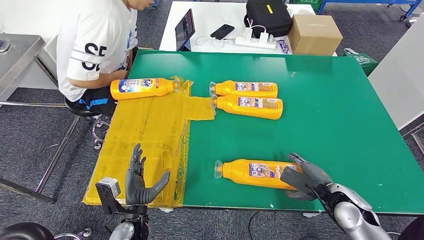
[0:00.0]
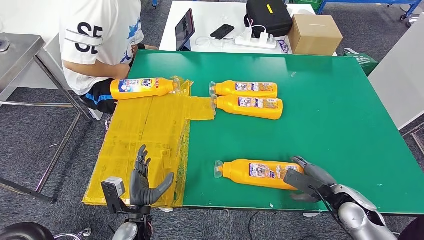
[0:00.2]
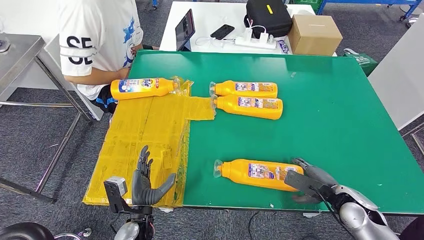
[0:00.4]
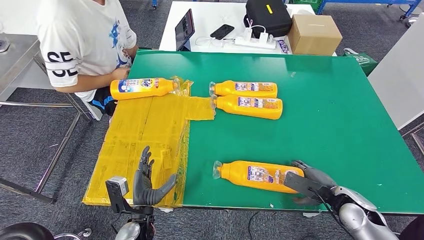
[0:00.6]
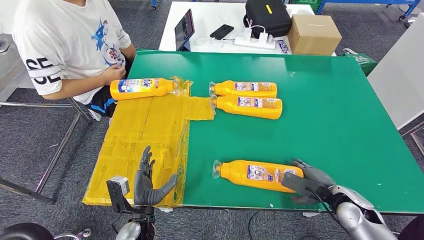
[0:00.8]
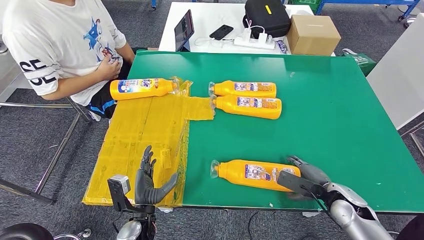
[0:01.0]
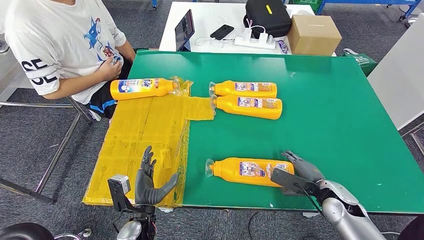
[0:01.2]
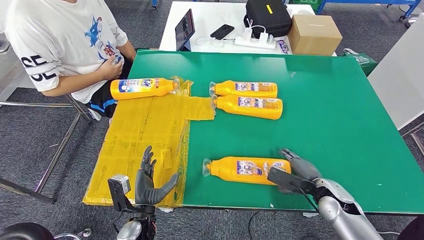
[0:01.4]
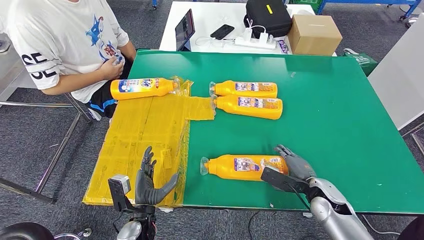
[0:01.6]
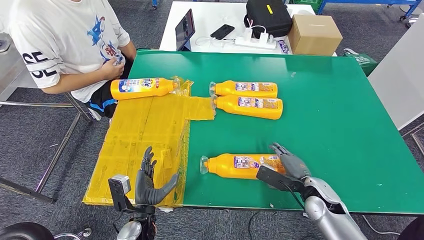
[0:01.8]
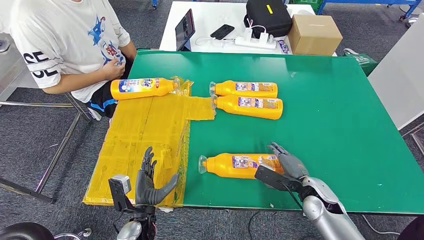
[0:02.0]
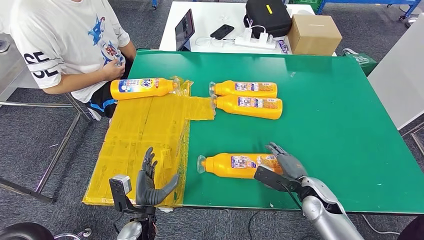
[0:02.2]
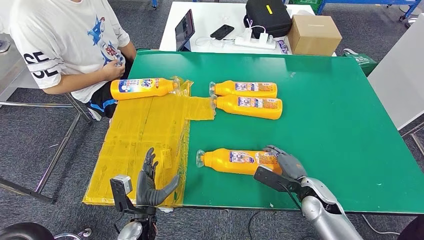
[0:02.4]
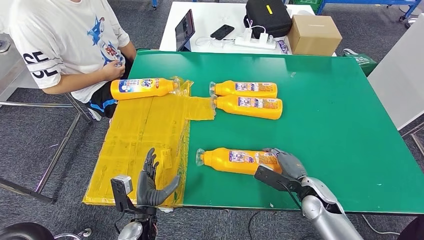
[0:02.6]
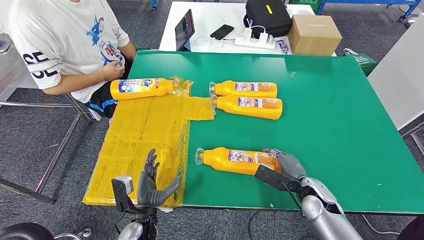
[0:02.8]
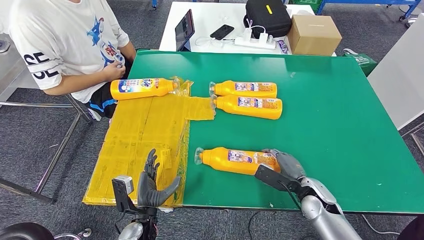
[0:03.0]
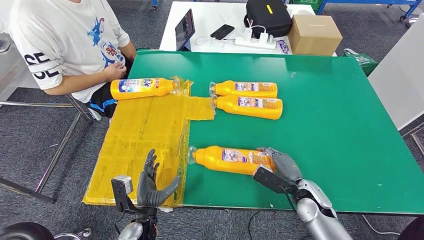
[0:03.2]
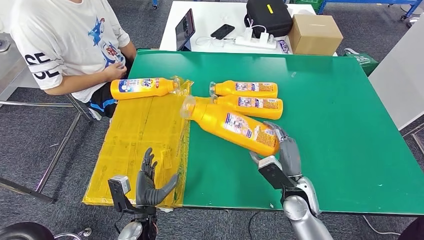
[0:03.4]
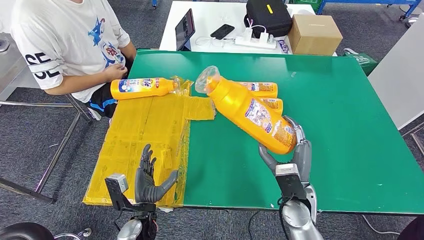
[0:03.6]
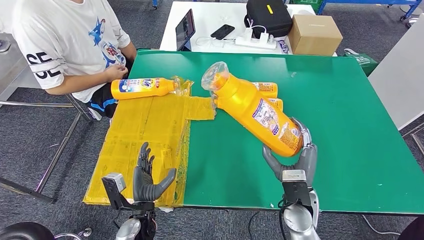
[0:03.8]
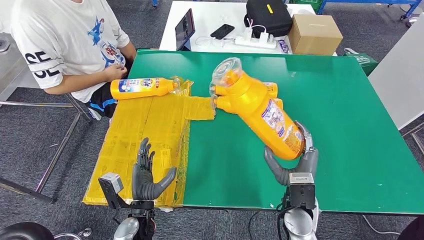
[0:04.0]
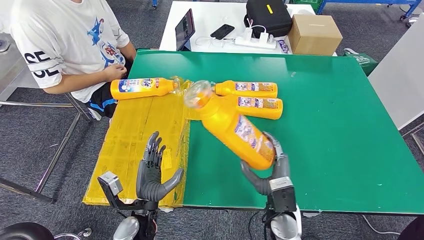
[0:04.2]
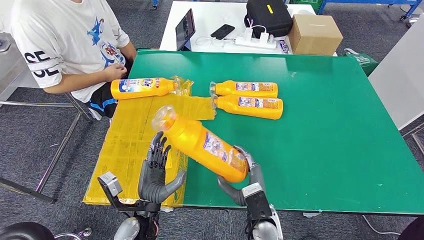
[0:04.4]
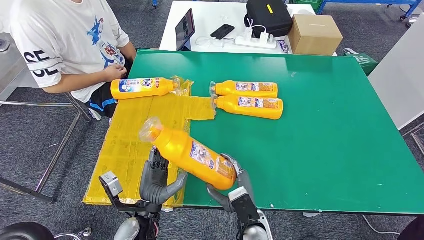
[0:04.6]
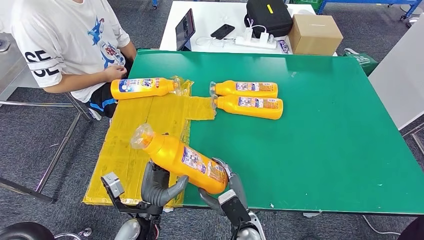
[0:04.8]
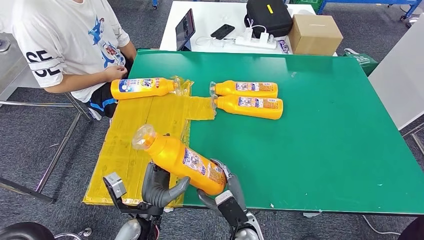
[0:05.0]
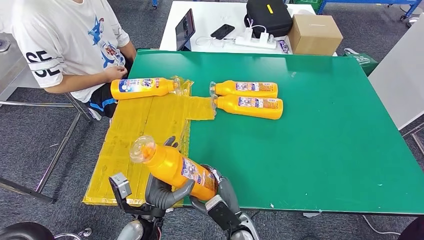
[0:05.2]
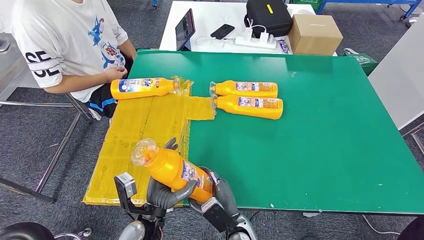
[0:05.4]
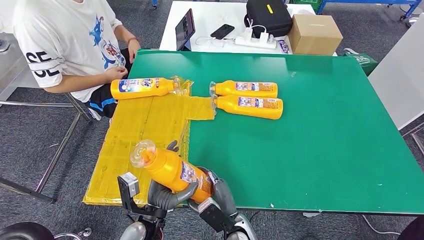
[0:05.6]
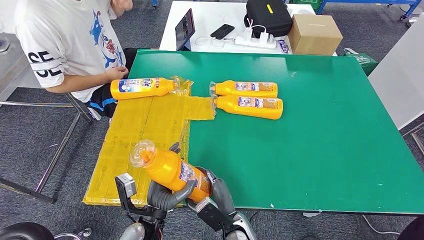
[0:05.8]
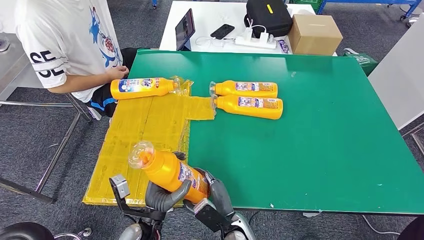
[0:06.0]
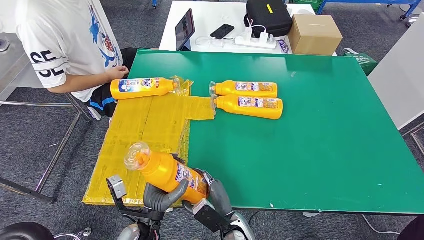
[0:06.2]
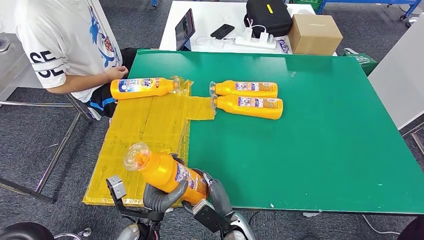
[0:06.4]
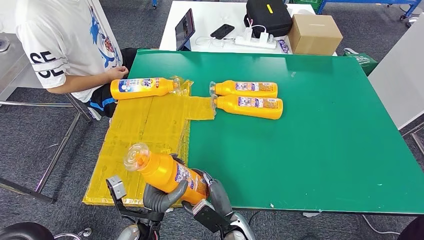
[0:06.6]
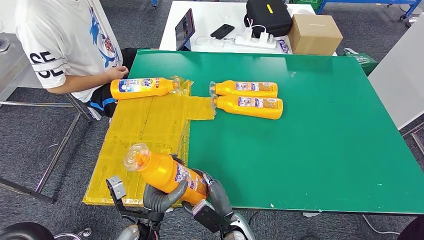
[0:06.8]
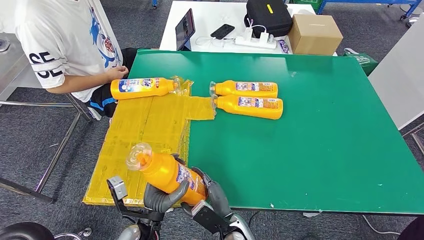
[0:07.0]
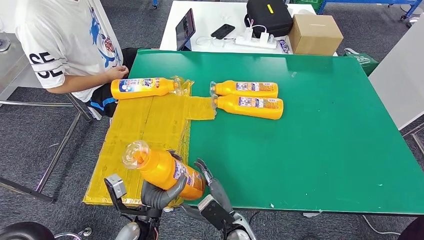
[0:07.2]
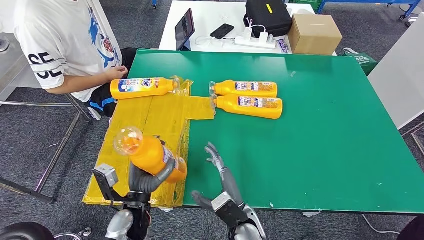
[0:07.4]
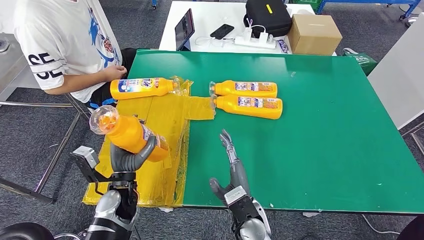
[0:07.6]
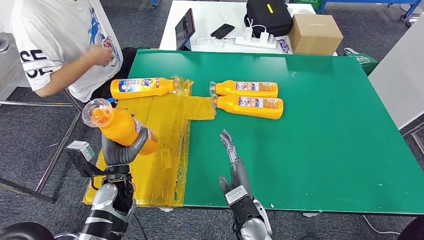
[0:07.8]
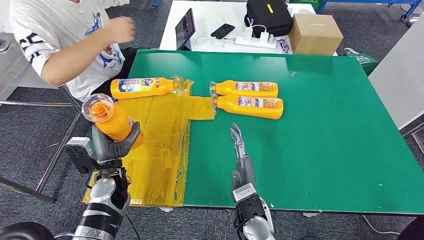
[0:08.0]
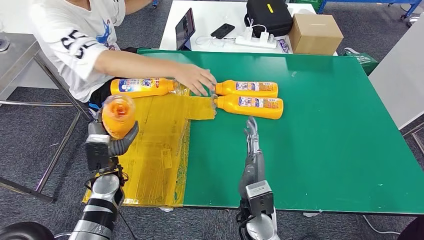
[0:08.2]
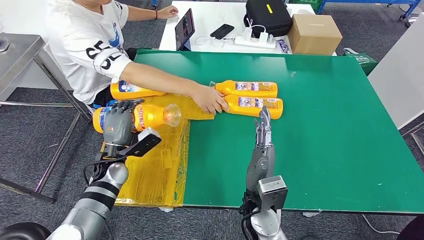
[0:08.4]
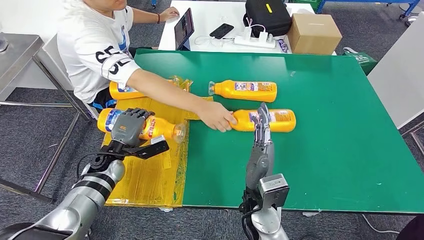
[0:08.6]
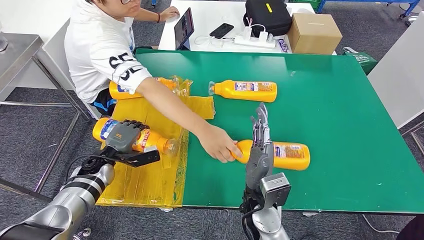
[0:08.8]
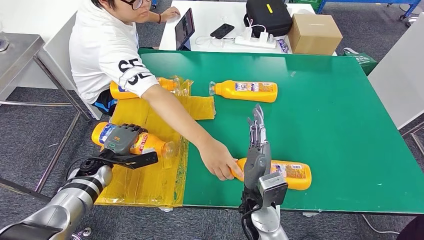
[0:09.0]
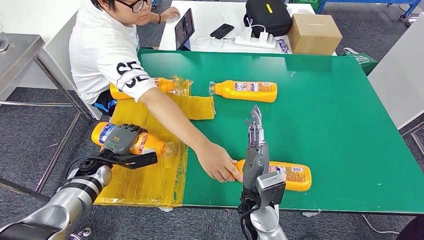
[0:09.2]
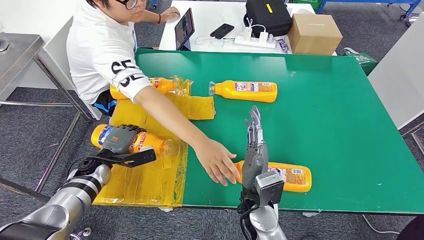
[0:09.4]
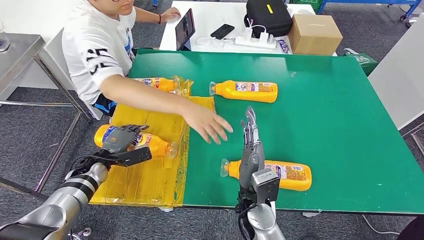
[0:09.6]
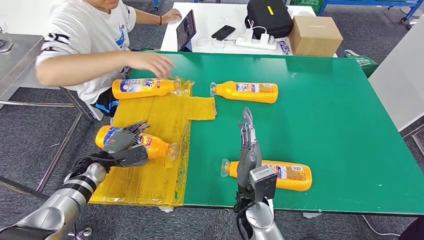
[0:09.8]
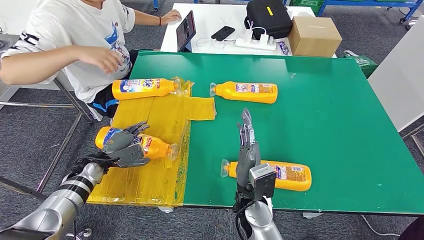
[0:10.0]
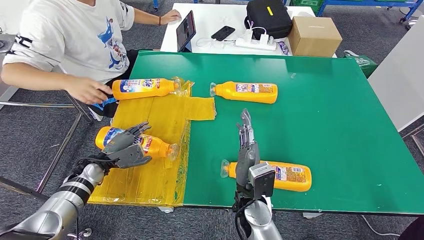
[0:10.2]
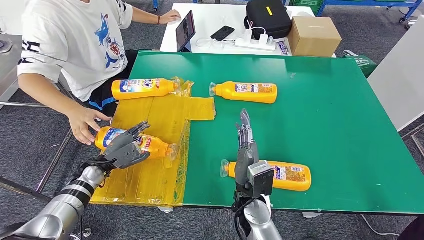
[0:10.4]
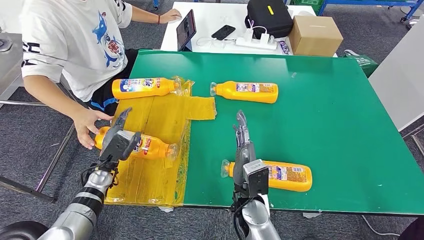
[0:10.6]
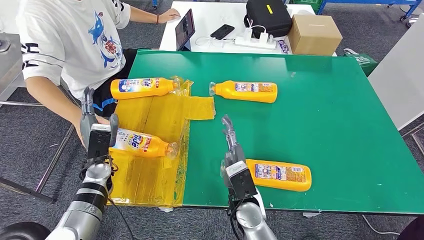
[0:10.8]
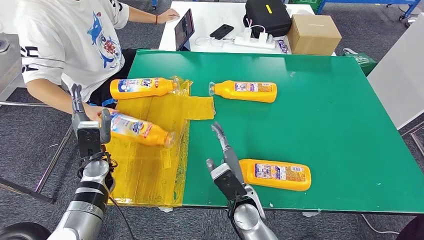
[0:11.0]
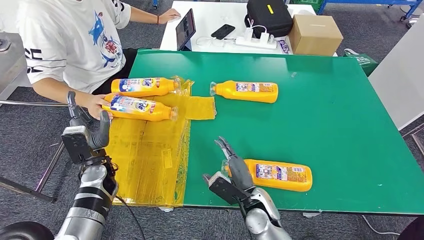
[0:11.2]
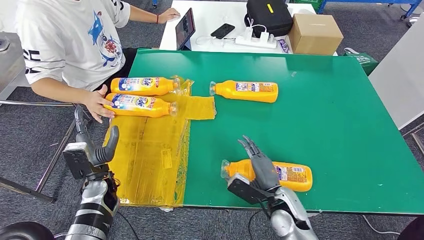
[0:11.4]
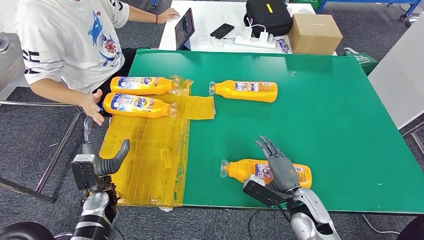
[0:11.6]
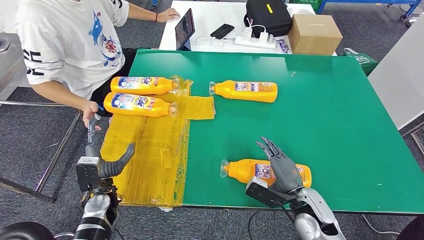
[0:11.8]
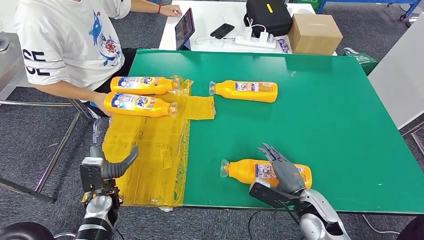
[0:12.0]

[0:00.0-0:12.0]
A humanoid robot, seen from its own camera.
Step, 0:00.0 to 0:03.4: Pick up the bottle from the table.
Step, 0:04.0 to 0:09.4: Flip the bottle to face forward.
0:00.0 to 0:01.6: The right hand changes place by approximately 5 cm.
0:01.6 to 0:03.0: The hands move only a little.
0:03.0 to 0:04.4: The left hand is displaced upward by about 5 cm, while the right hand shifts approximately 15 cm to the left and backward.
0:04.4 to 0:06.0: The right hand is displaced to the left by about 5 cm.
0:06.0 to 0:07.6: The left hand travels forward and to the left by roughly 10 cm, while the right hand is displaced upward by about 5 cm.

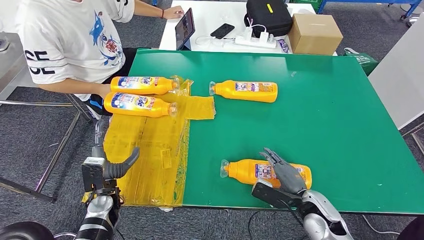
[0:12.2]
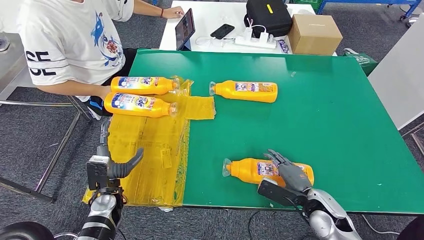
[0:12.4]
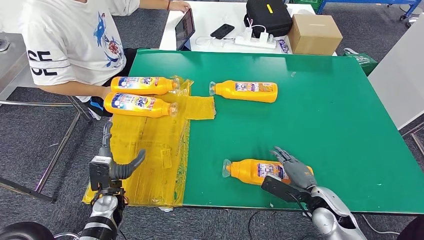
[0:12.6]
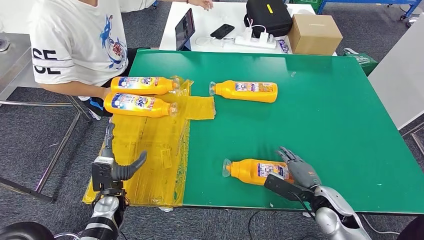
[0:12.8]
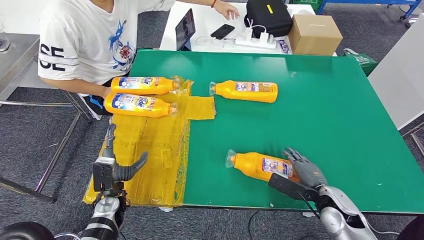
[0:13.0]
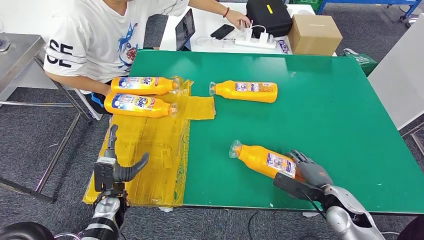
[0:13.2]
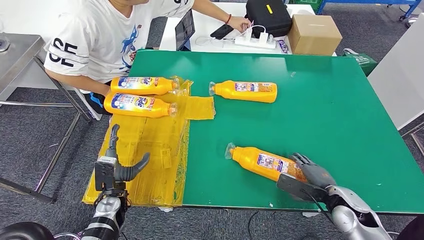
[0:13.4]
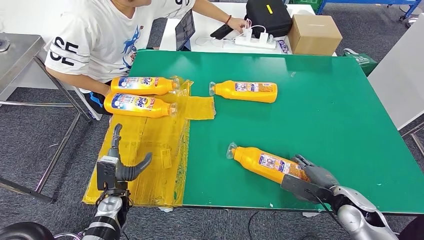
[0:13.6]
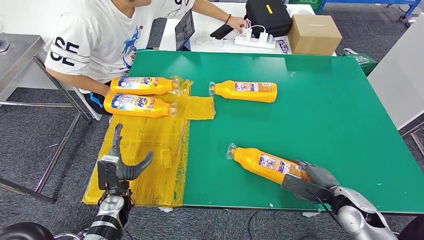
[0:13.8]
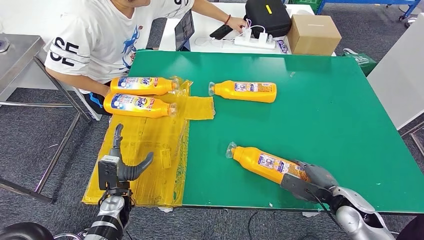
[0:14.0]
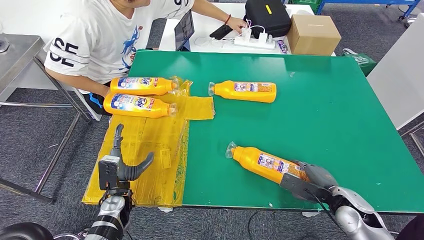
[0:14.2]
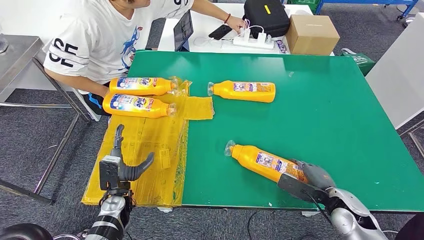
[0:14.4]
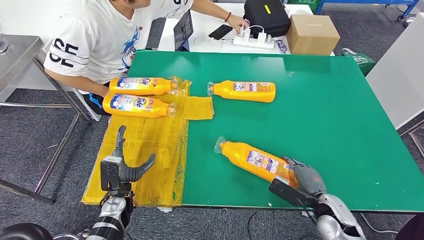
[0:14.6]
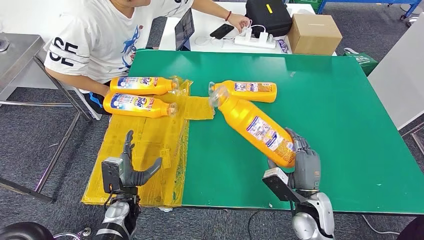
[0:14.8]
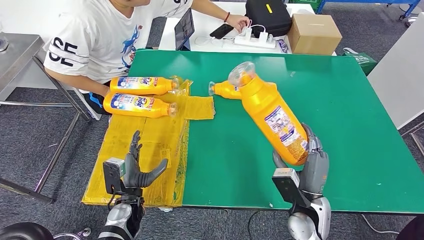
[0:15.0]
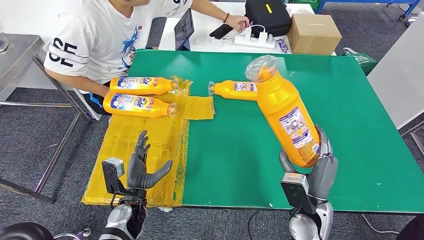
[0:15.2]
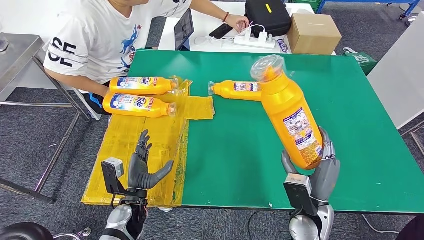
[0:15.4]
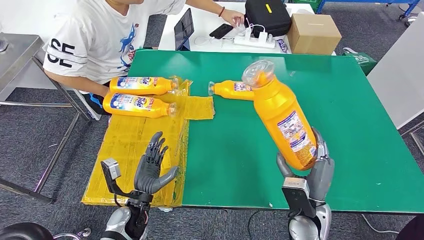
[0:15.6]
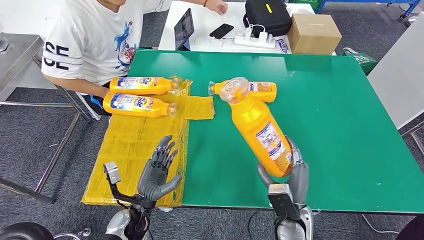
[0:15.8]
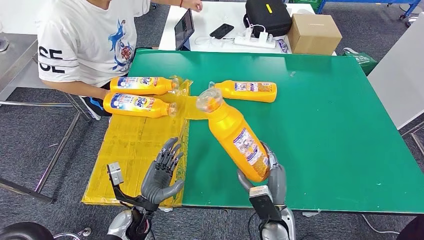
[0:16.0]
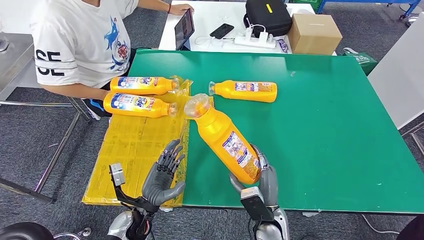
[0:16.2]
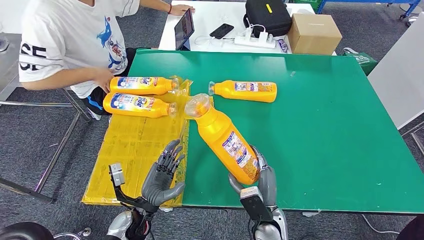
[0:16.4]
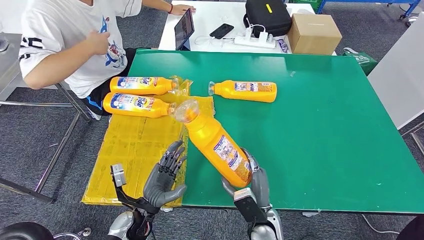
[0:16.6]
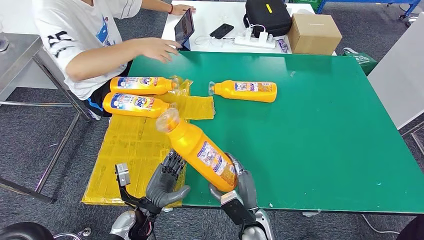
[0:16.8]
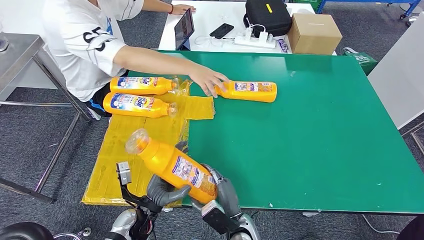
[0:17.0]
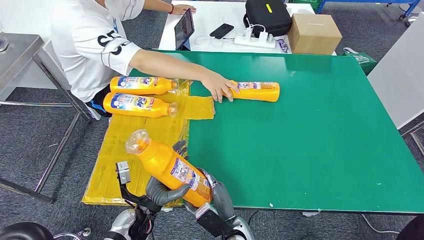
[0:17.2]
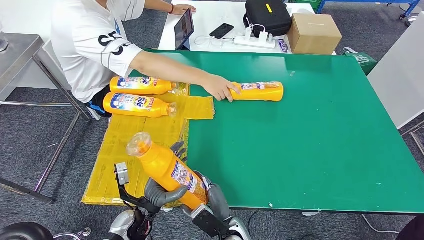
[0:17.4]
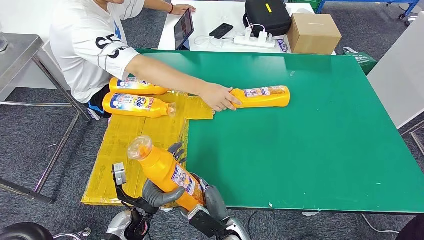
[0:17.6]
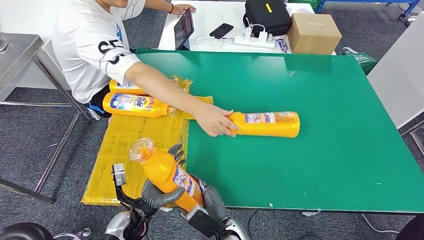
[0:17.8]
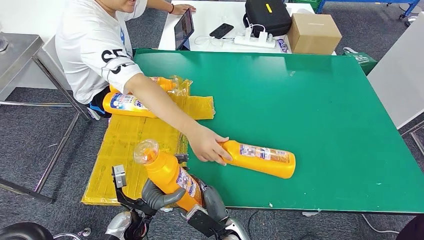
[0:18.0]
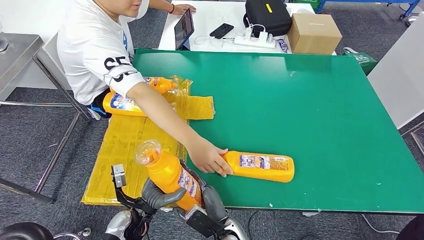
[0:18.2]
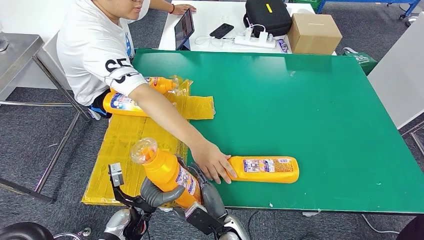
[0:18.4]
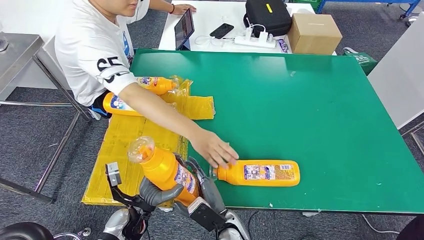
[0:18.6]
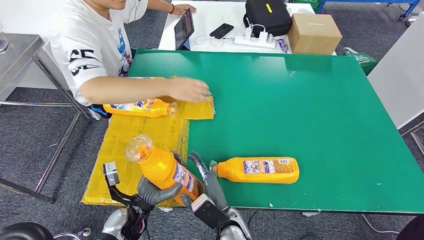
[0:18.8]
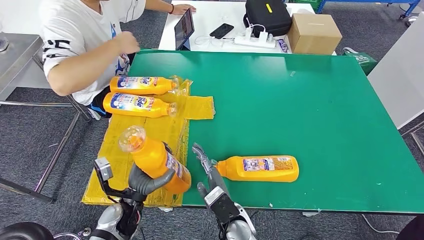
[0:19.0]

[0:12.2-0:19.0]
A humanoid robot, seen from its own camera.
Step, 0:12.2 to 0:14.8: Pick up the bottle from the table.
0:13.6 to 0:15.0: The right hand shifts about 15 cm to the left.
0:16.2 to 0:17.6: The right hand goes some 10 cm to the left and downward.
0:17.6 to 0:19.0: The right hand is displaced upward by about 5 cm.
